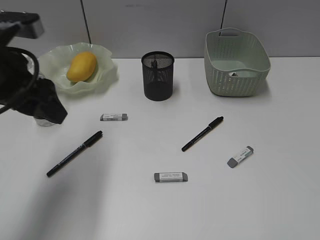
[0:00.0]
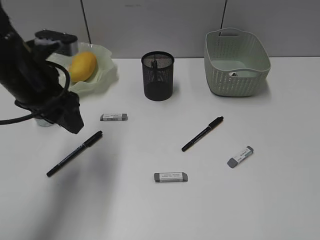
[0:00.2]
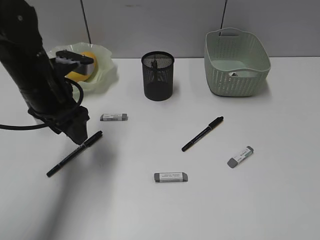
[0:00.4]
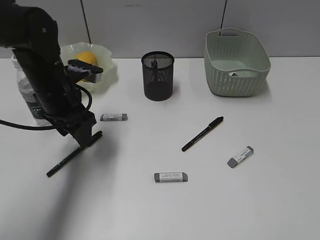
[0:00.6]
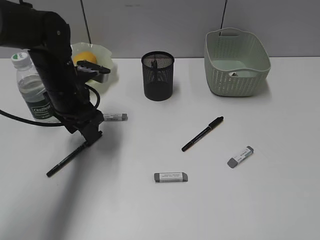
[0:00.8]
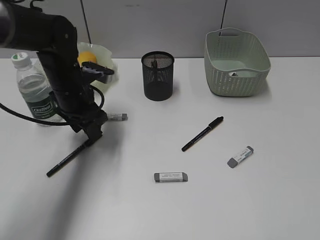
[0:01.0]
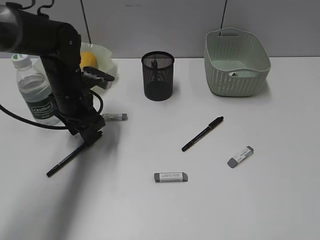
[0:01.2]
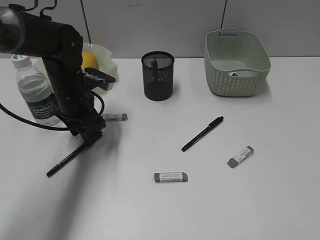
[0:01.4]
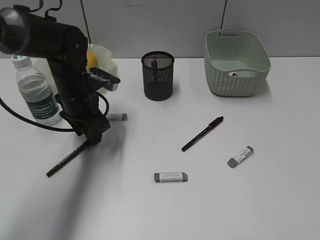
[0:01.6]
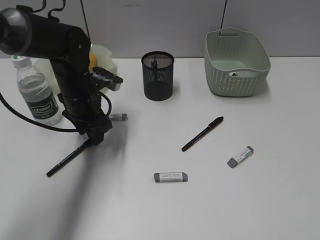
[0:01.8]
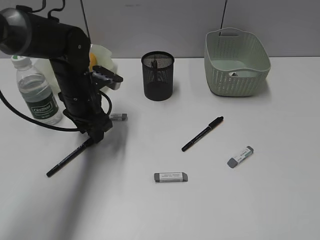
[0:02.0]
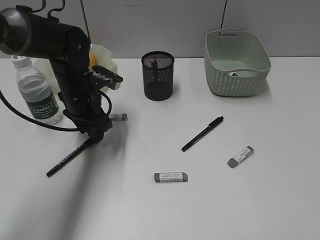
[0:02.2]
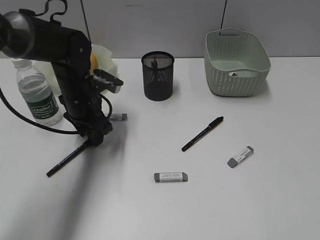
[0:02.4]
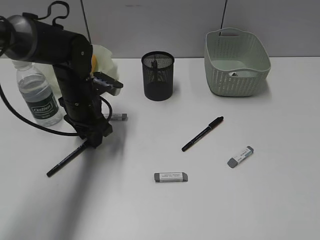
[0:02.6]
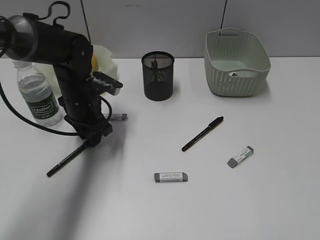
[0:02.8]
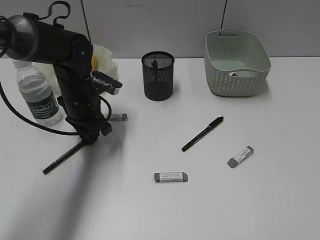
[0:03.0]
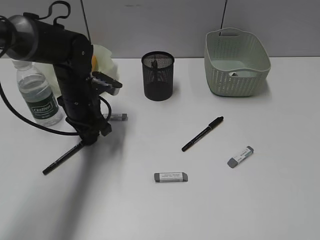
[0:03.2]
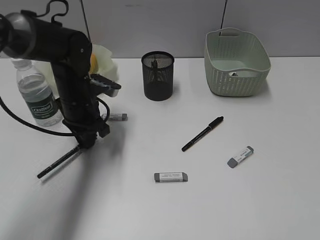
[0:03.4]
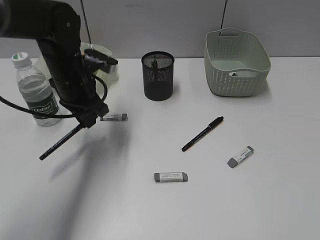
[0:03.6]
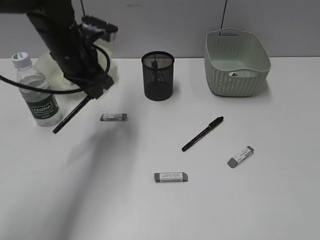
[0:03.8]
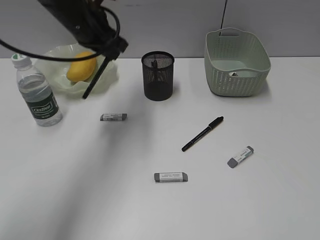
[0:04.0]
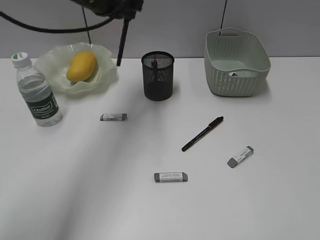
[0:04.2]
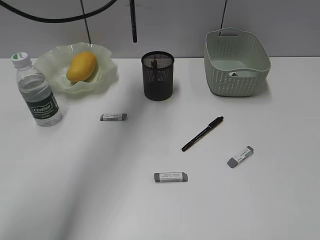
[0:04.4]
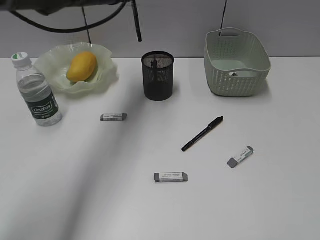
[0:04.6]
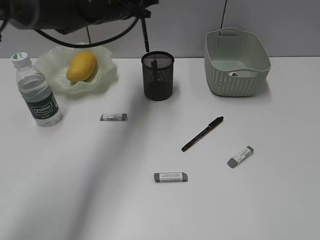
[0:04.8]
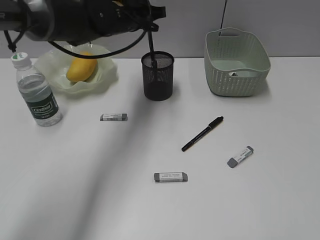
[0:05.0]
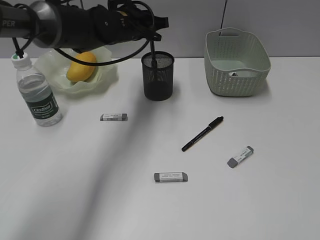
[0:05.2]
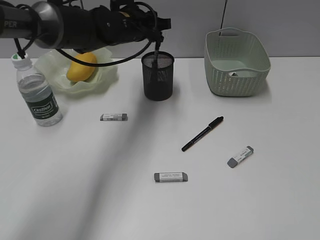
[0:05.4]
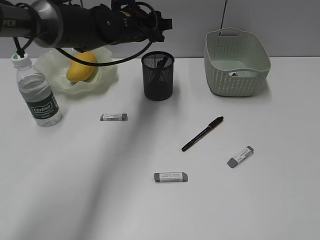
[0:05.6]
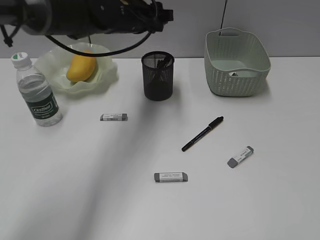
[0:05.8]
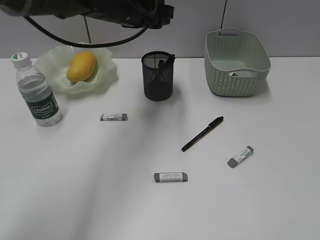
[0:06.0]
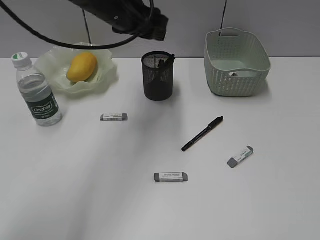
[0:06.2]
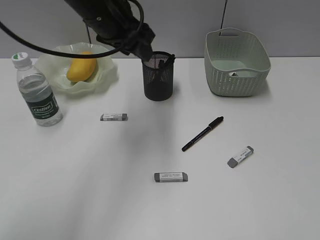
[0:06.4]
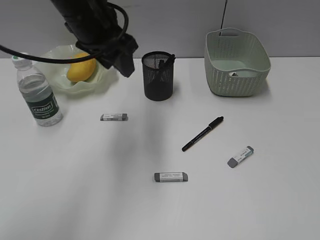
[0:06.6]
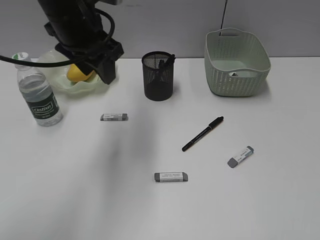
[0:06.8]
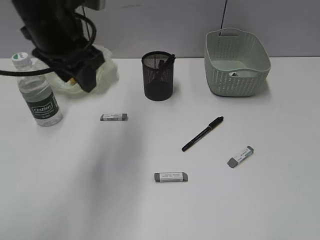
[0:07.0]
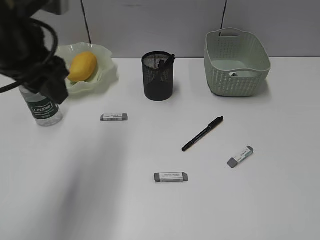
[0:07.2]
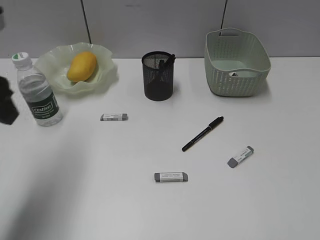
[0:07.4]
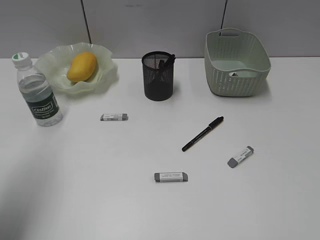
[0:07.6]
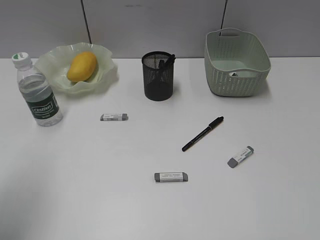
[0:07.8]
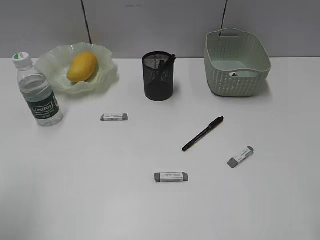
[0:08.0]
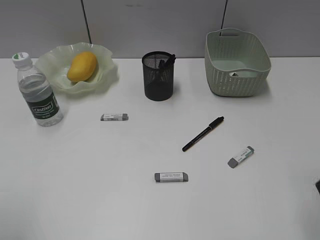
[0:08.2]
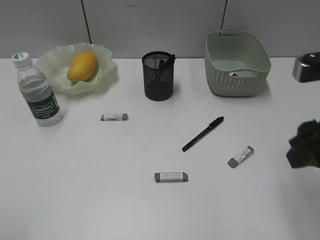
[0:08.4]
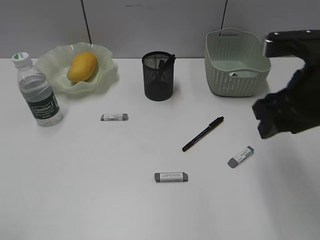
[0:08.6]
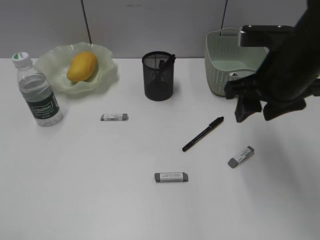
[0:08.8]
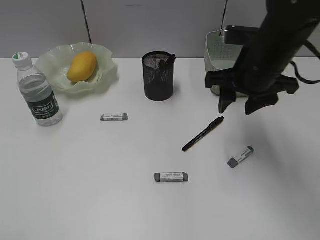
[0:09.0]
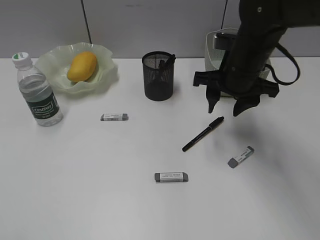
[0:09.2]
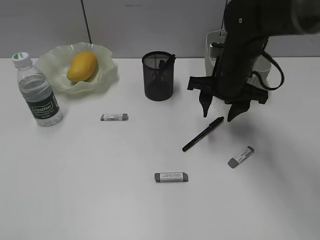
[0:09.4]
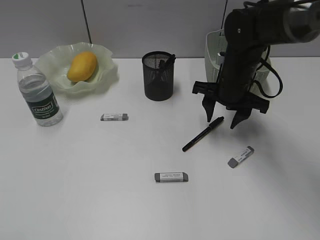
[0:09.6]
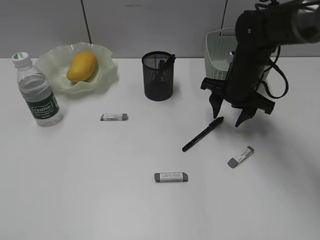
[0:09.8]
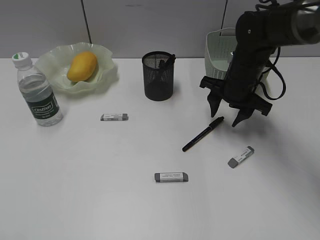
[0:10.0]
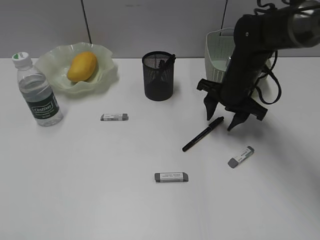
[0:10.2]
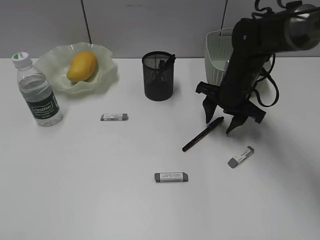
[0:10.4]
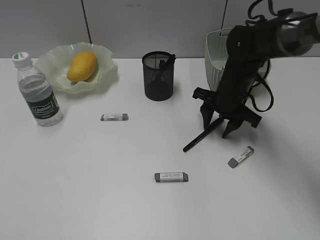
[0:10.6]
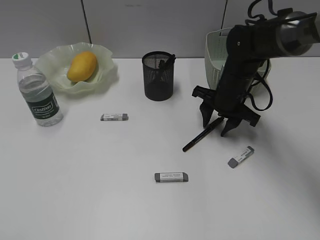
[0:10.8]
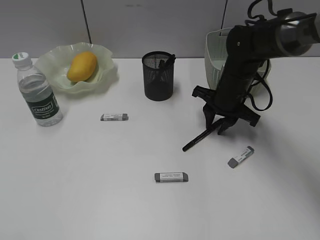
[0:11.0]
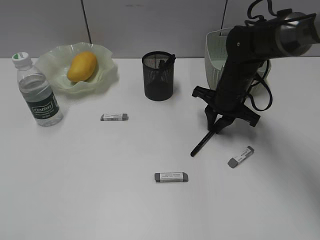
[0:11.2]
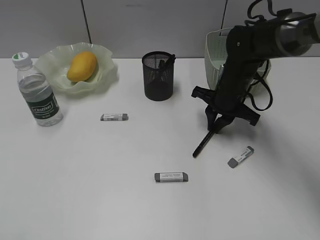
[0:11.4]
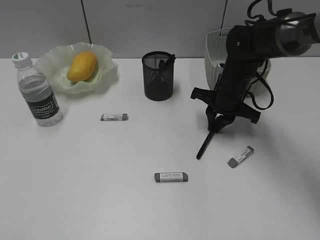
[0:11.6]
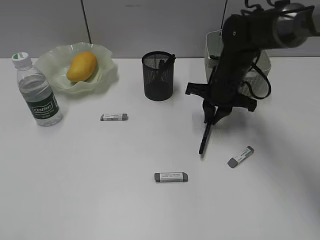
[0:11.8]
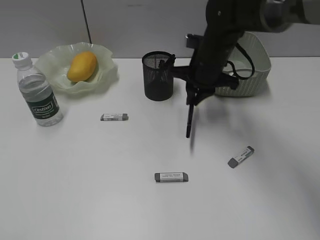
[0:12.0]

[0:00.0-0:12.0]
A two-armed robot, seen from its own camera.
Step, 0:00.0 to 0:03.0: Grasp the black pen with left gripper.
Step, 0:03.2 to 0:05.6: Place the black pen in pen holder with left gripper.
Step, 0:05.8 to 0:11.4: Grasp the black pen with right gripper.
0:00.0 to 0:01.6: The left gripper travels downward, forward and to the right by roughly 20 cm.
0:01.6 to 0:03.0: The left gripper closes.
0:03.0 to 0:04.4: The left gripper goes approximately 20 cm upward.
0:04.4 to 0:06.0: The left gripper opens its fingers.
0:06.0 to 0:07.6: The left gripper moves to the left and backward, approximately 30 cm.
0:07.6 to 0:09.0: The left gripper travels backward by some 20 cm. The right gripper shifts some 30 cm forward and to the left.
0:09.0 to 0:10.4: The right gripper heads downward and forward, covering approximately 10 cm.
0:10.4 to 0:12.0: The right gripper heads to the left, covering approximately 5 cm, and closes.

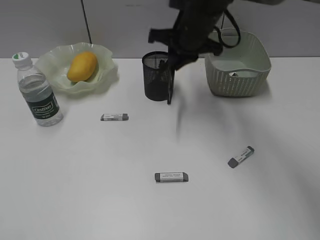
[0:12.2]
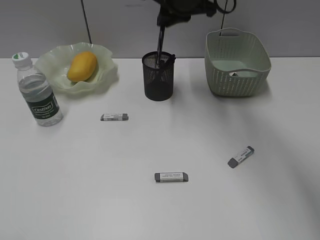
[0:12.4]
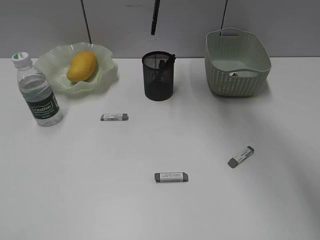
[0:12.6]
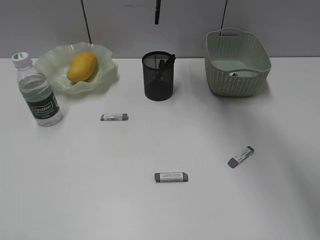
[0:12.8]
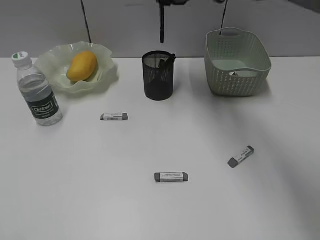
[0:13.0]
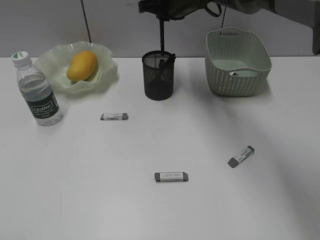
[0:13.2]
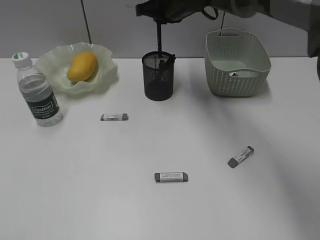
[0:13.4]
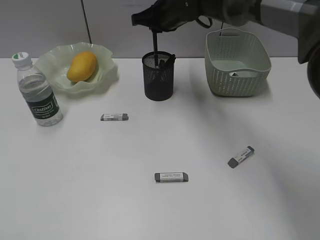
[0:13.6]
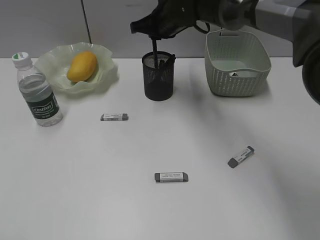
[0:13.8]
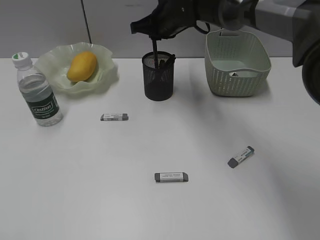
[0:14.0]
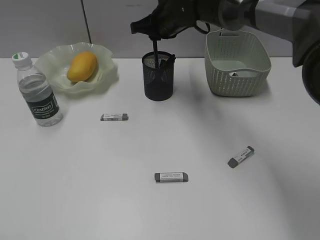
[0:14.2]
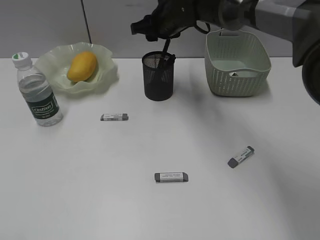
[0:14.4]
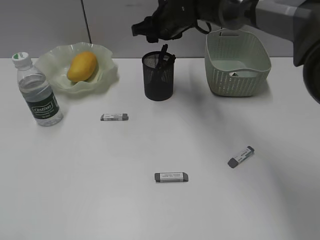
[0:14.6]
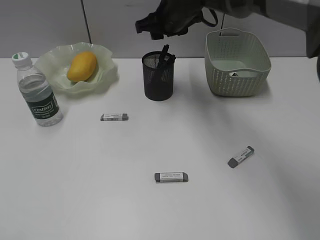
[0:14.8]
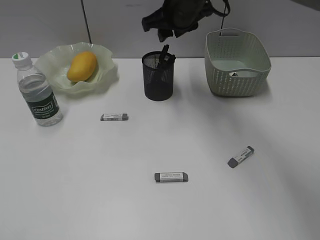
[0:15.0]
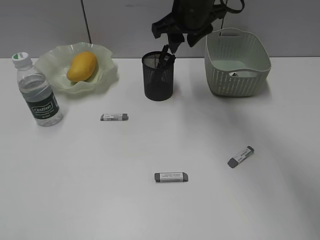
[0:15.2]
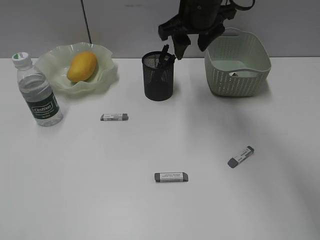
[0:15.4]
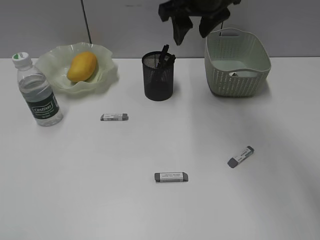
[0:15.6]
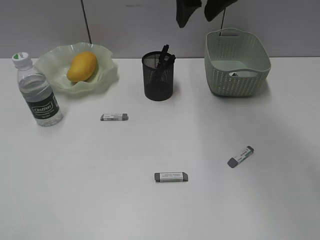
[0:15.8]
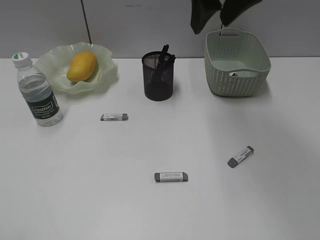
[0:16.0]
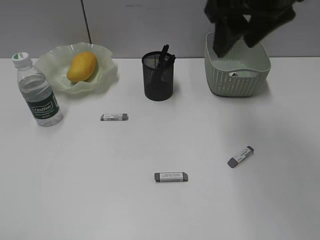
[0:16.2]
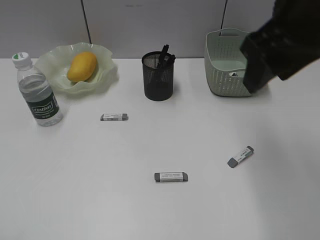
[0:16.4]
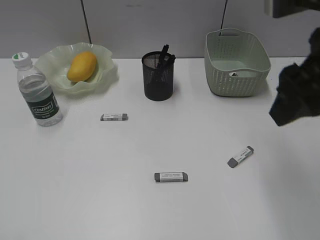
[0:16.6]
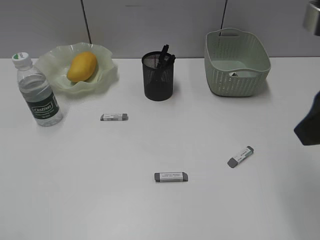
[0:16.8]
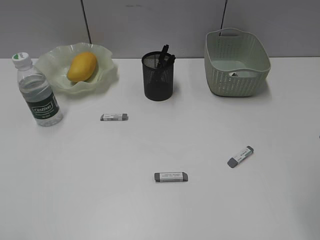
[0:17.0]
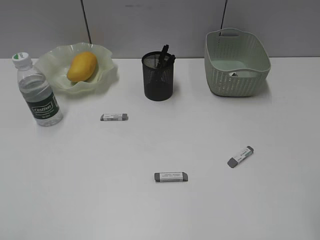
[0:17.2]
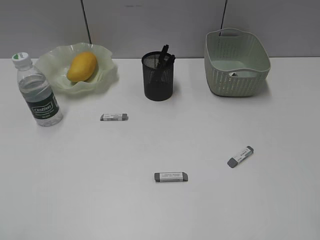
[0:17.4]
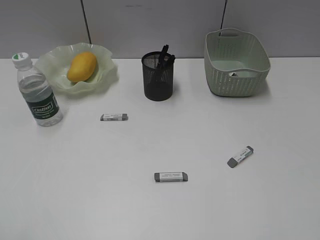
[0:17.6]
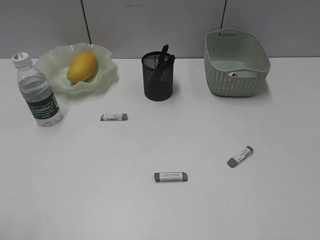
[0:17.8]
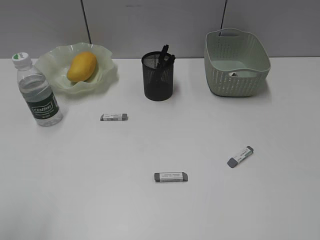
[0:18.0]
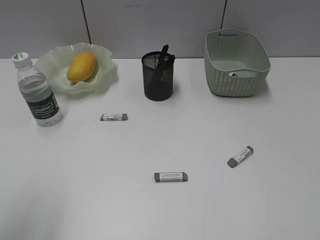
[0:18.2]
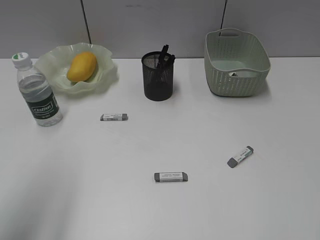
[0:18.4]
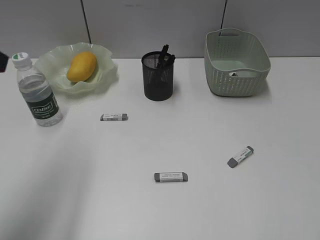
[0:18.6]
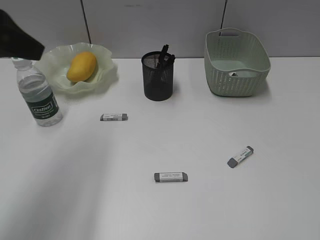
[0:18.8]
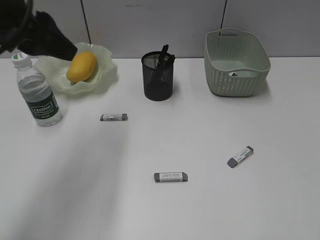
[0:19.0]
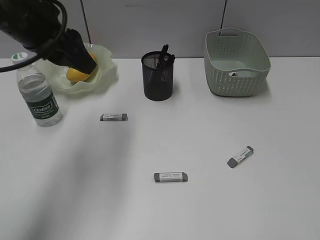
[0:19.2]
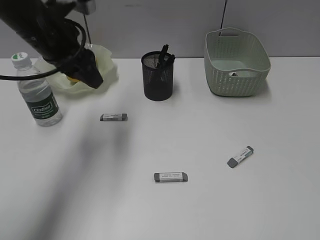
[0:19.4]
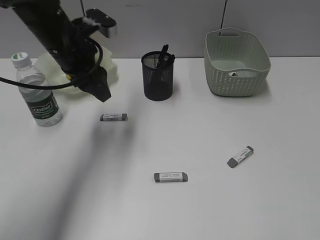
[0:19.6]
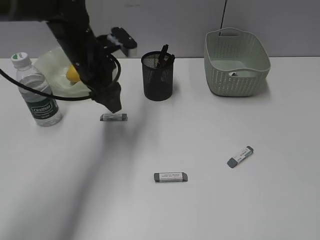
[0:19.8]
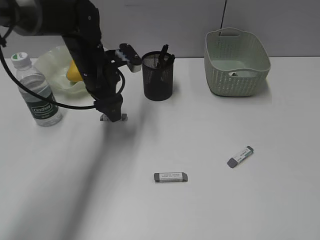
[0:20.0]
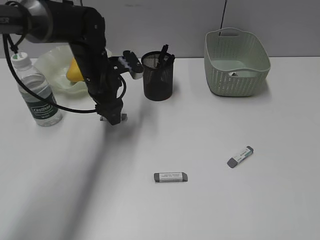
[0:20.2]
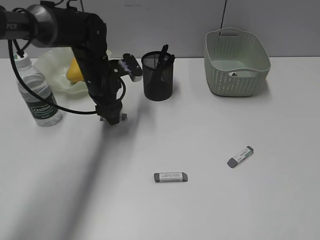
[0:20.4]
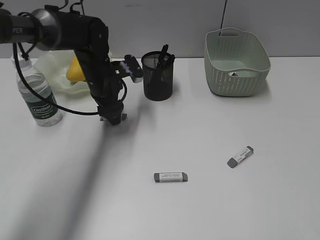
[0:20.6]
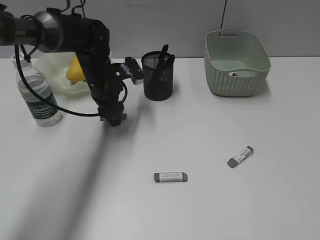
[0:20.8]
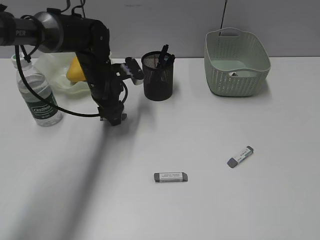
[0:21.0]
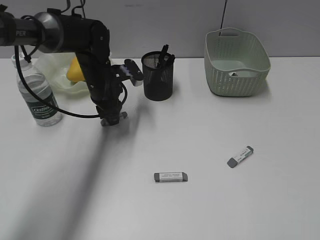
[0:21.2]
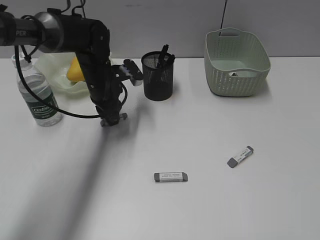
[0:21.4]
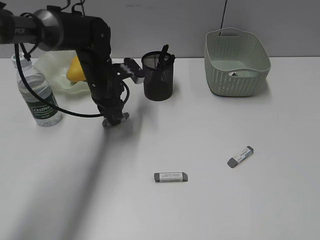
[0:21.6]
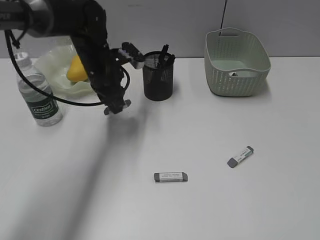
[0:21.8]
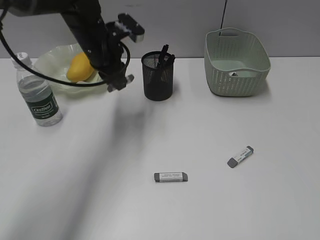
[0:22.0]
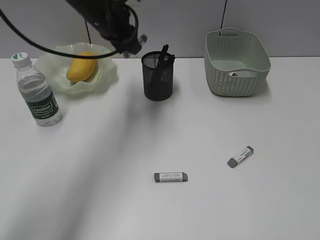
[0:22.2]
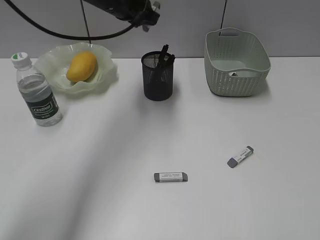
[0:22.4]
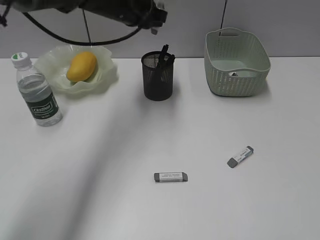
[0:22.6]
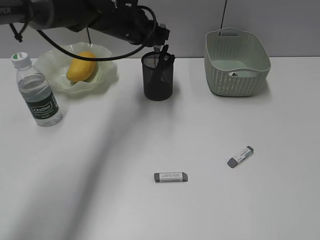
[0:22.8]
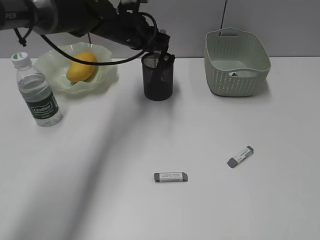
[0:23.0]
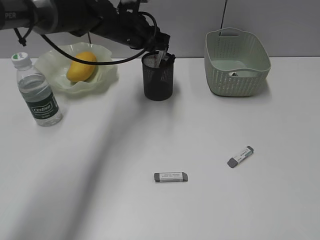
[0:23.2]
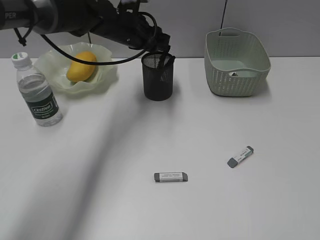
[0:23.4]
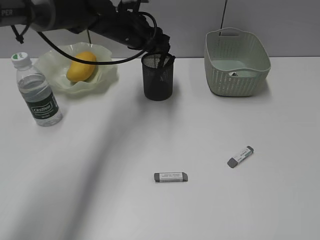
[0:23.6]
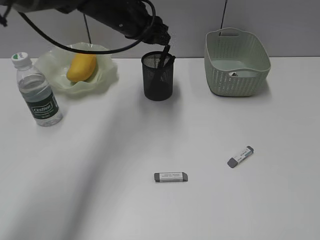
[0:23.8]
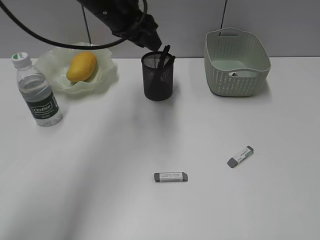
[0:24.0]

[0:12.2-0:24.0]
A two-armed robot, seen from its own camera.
Step, 0:12.2 to 0:14.6: Place the black pen in pen holder with right gripper.
Step, 0:14.8 to 0:21.4: Grasp the eraser with left gripper.
Step, 0:21.6 to 0:23.6: Place the eraser in pen holder with left gripper.
0:12.2 to 0:13.6: The right gripper travels forward by approximately 5 cm, and goes upward and returns, approximately 10 cm each way.
0:13.6 to 0:15.2: The right gripper heads backward, covering approximately 5 cm, and opens up.
0:15.2 to 0:16.6: The right gripper travels backward and to the right by some 25 cm.
0:16.6 to 0:18.2: The left gripper is displaced forward by roughly 10 cm; the right gripper travels backward and to the right by approximately 20 cm.
0:18.2 to 0:19.6: The left gripper heads forward and to the right, covering approximately 30 cm.
0:19.6 to 0:21.0: The left gripper shifts about 10 cm downward and forward.
0:21.0 to 0:22.6: The left gripper heads upward, covering approximately 15 cm, and closes up.
0:22.6 to 0:24.0: The left gripper changes place by approximately 5 cm, and opens.
